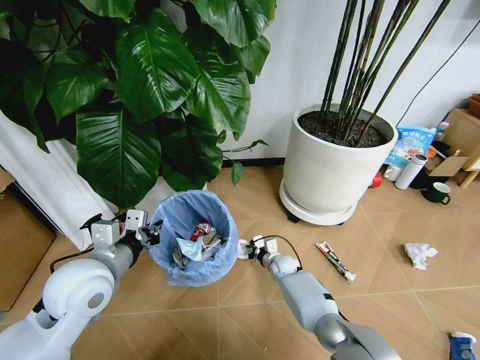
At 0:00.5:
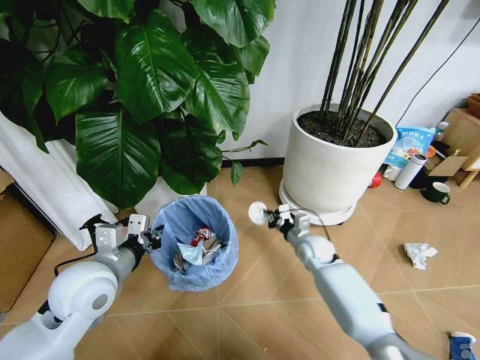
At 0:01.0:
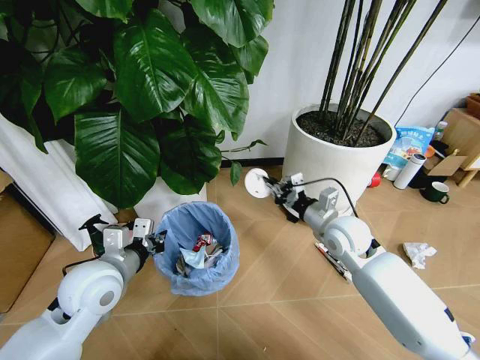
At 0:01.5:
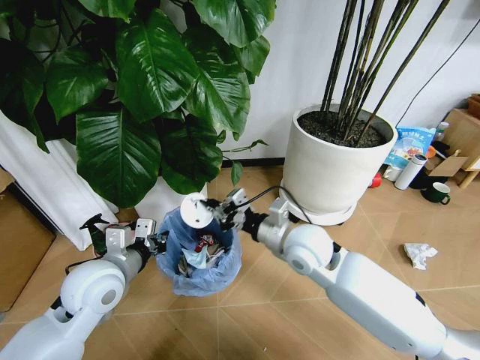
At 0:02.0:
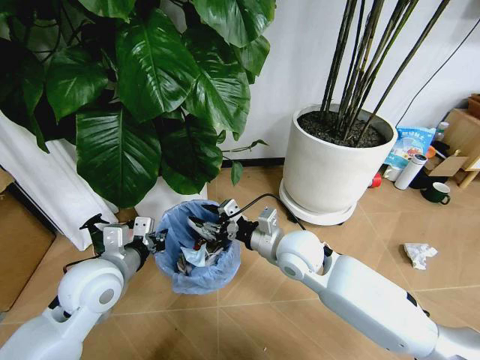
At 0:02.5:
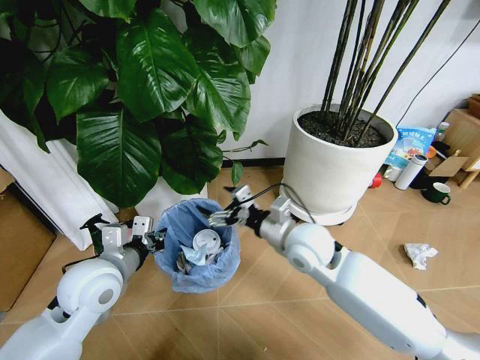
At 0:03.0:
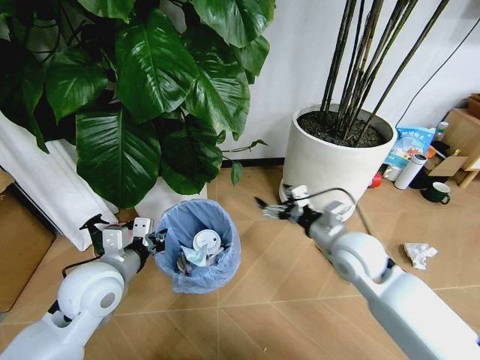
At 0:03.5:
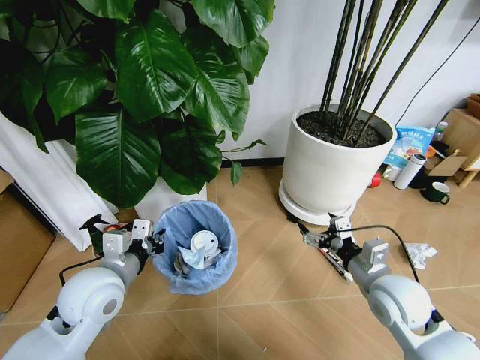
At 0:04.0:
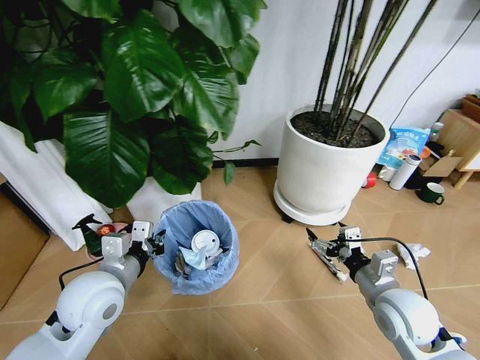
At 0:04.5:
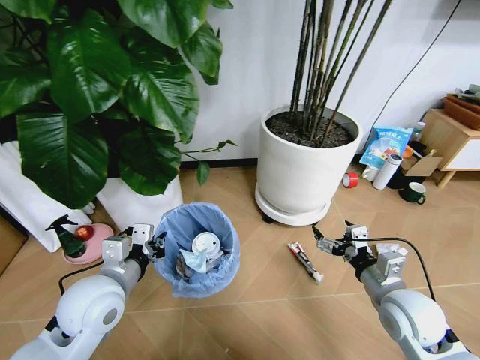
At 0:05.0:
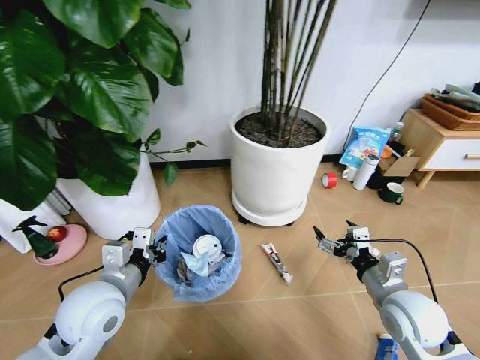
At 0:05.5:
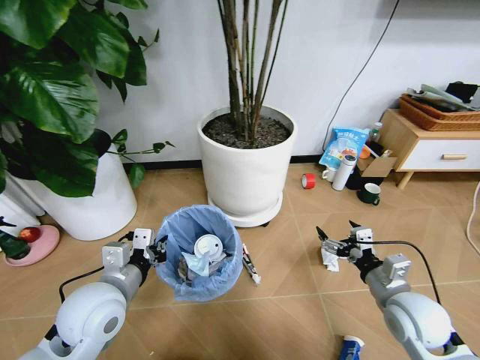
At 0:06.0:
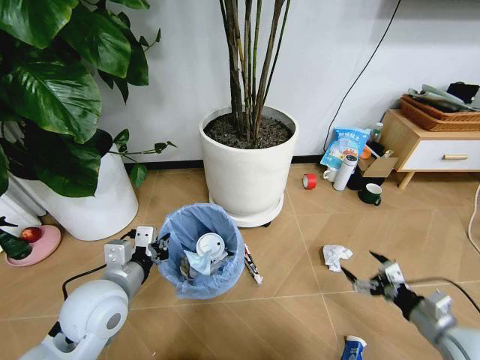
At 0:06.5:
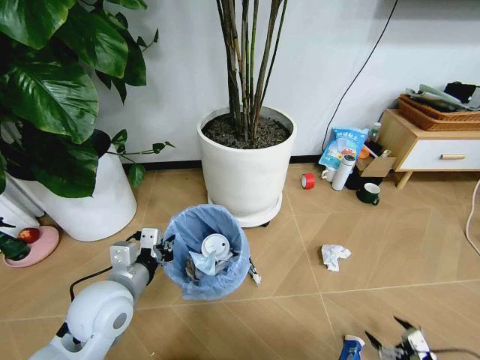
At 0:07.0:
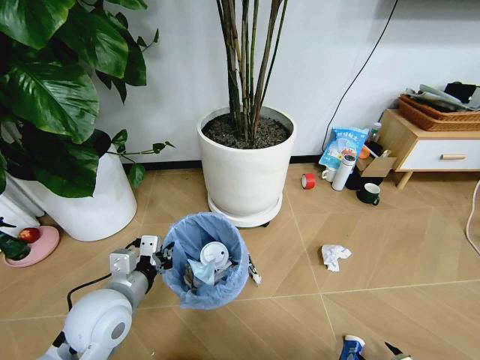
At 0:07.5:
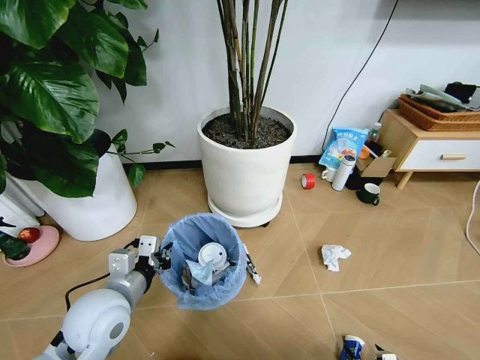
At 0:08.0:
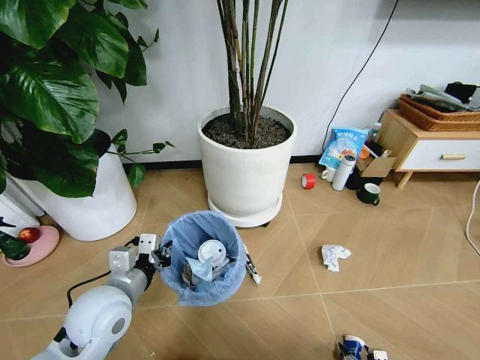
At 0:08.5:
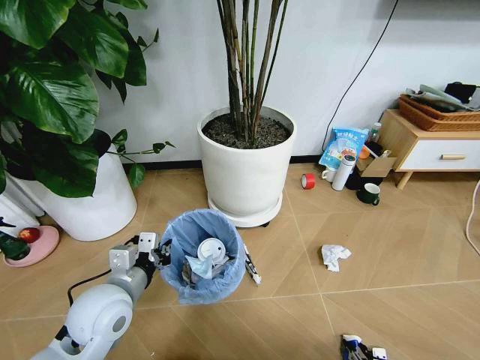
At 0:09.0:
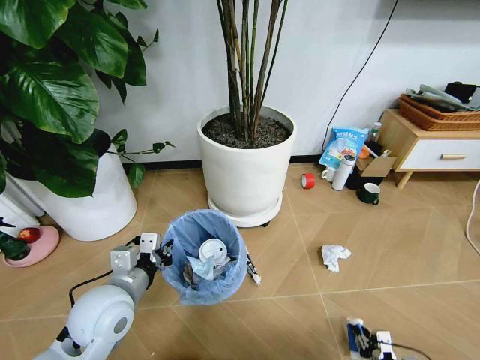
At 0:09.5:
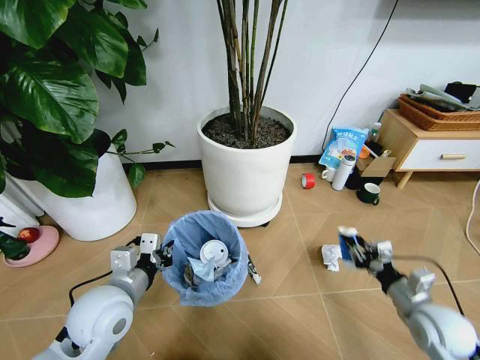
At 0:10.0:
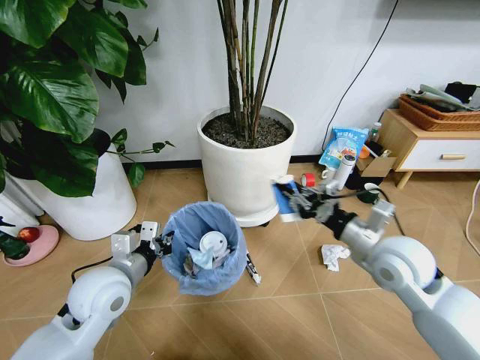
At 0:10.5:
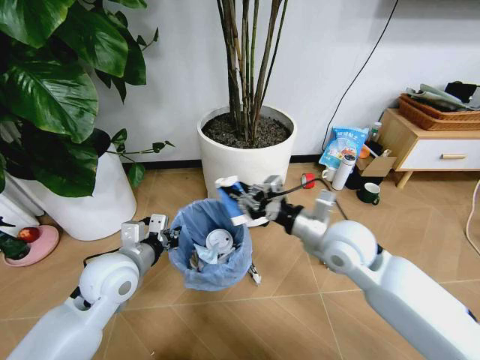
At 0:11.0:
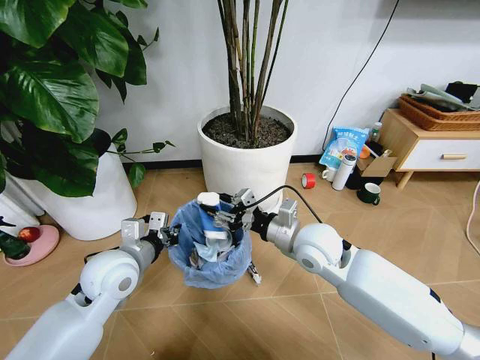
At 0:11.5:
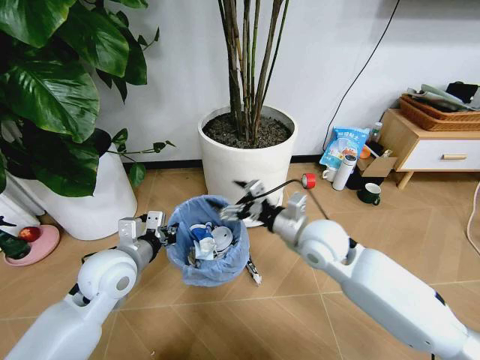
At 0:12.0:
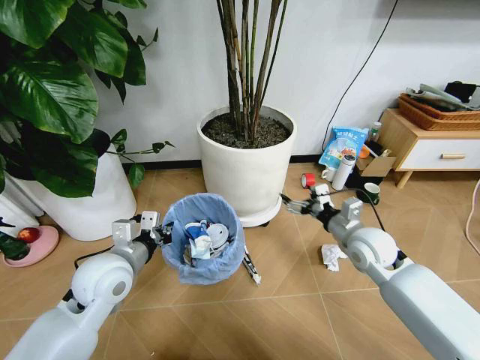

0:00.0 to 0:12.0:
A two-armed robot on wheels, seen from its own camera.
Task of the whole recording: Pick up the trash bin and place the garbage on the floor into it.
0:00.0 to 0:02.0: The right gripper goes approximately 30 cm upward, and opens its fingers.
0:02.0 to 0:04.0: The right gripper is displaced to the right and backward by roughly 20 cm, and opens its fingers.
0:04.0 to 0:06.0: The right gripper shifts approximately 15 cm to the right, backward and downward.
0:06.0 to 0:08.0: The right gripper travels downward and backward by some 25 cm.
0:08.0 to 0:10.0: The right gripper shifts some 40 cm upward and forward, and closes its fingers.
0:10.0 to 0:12.0: The right gripper goes some 10 cm downward and forward, moves roughly 15 cm to the left and comes back, and opens.

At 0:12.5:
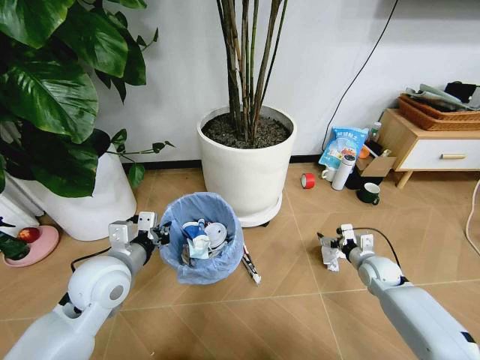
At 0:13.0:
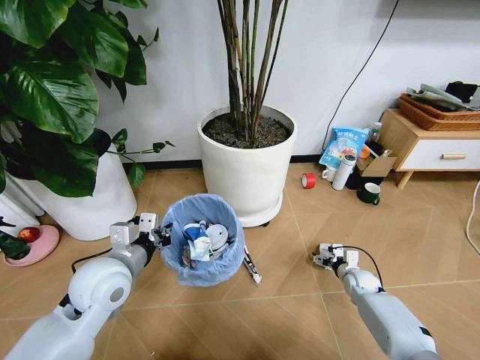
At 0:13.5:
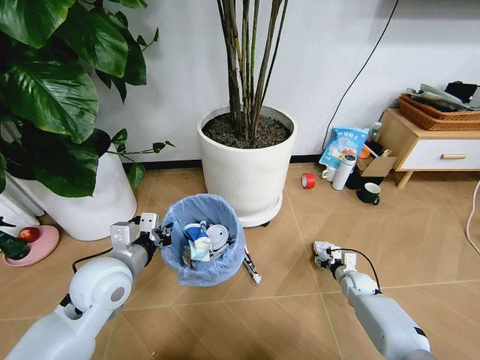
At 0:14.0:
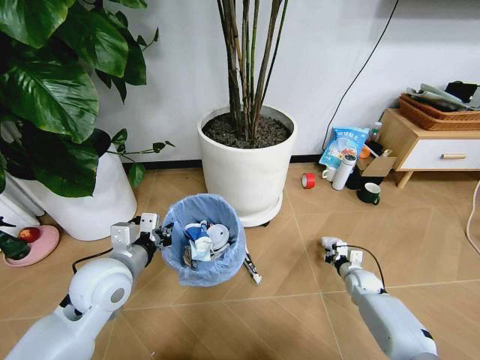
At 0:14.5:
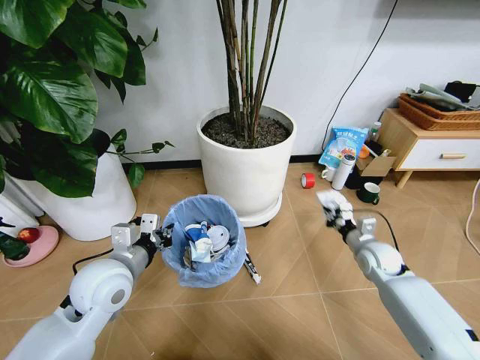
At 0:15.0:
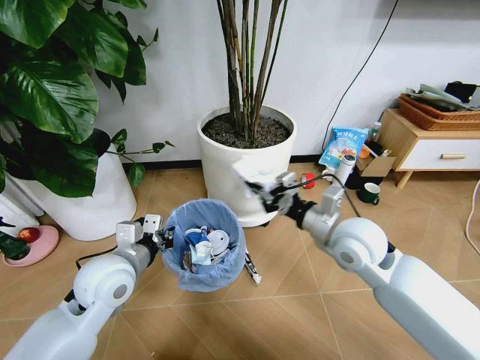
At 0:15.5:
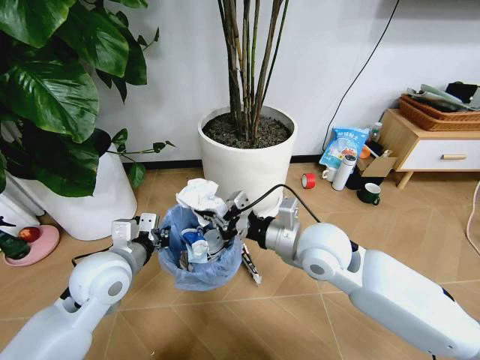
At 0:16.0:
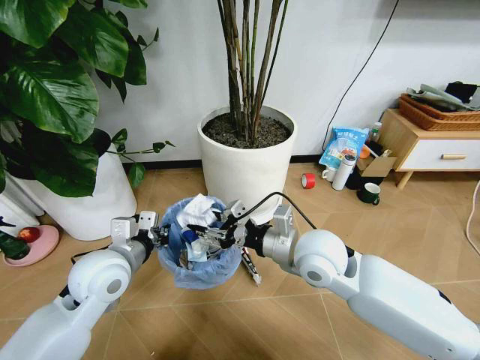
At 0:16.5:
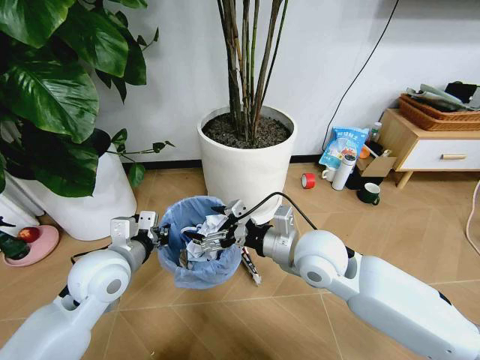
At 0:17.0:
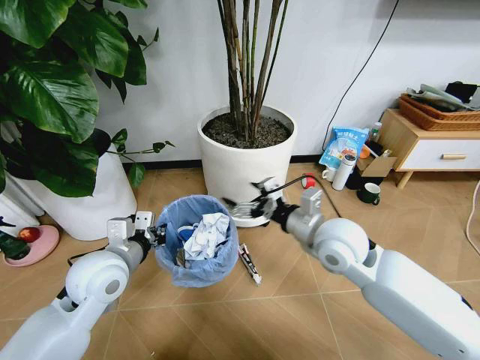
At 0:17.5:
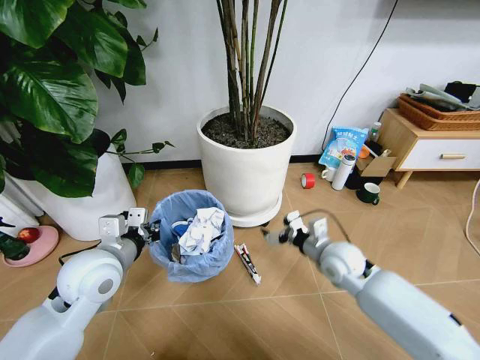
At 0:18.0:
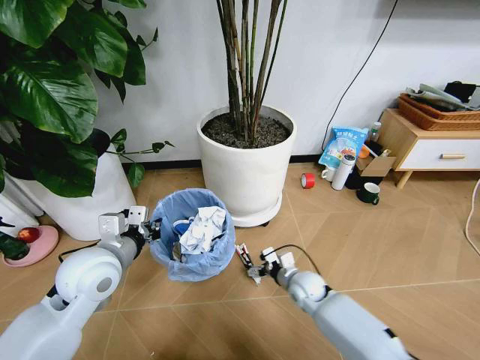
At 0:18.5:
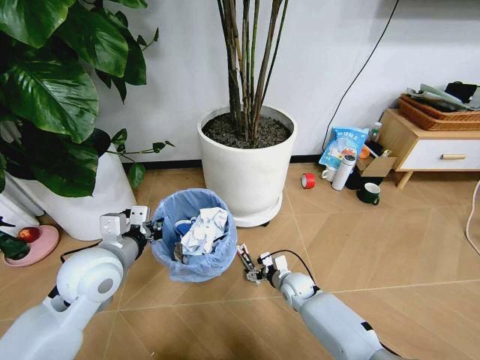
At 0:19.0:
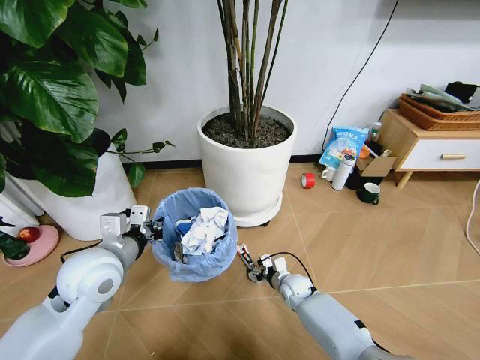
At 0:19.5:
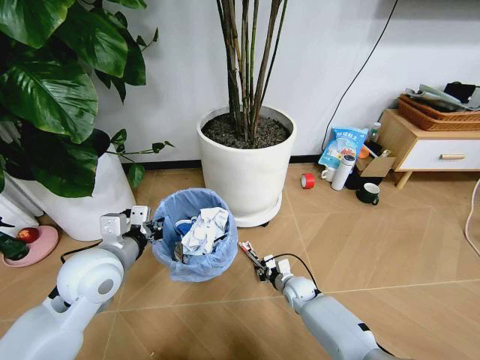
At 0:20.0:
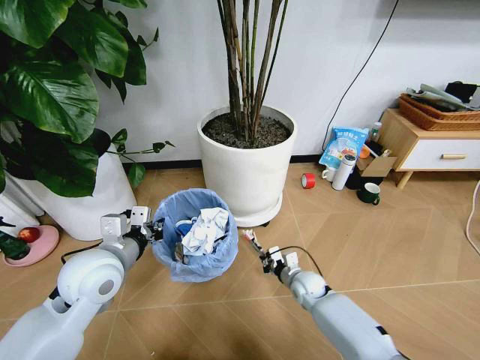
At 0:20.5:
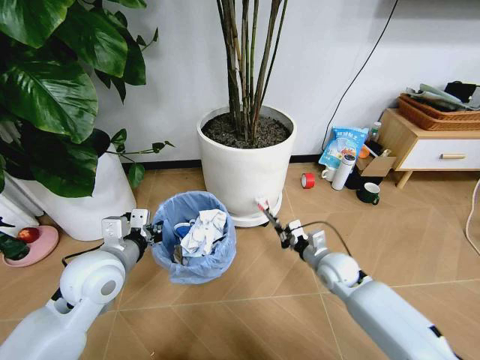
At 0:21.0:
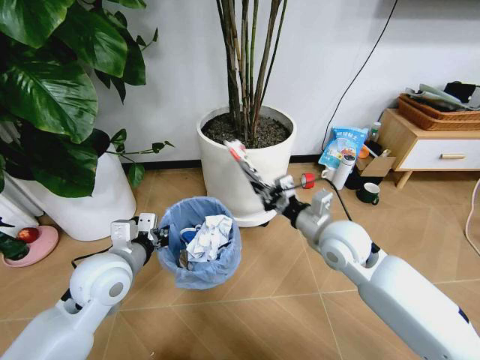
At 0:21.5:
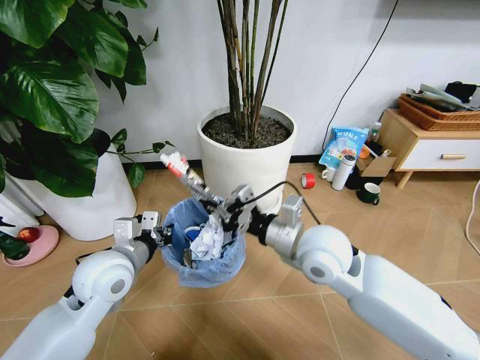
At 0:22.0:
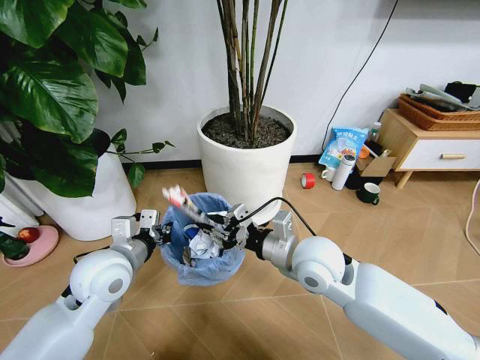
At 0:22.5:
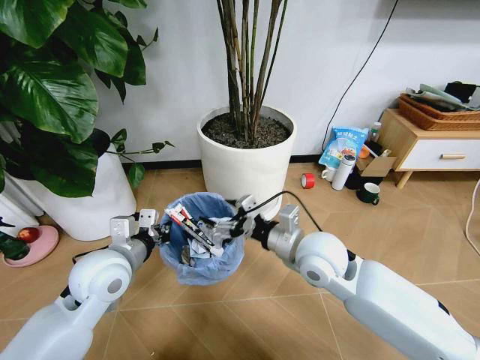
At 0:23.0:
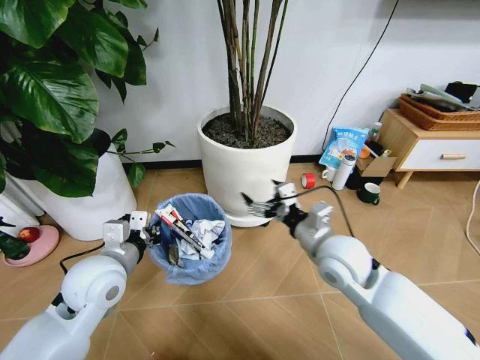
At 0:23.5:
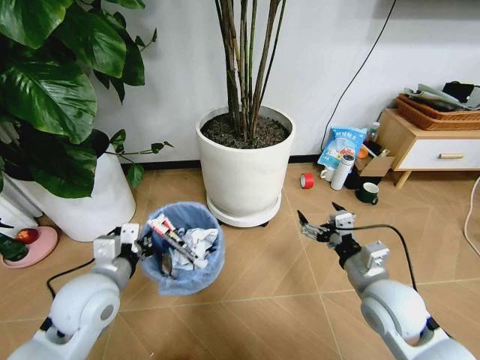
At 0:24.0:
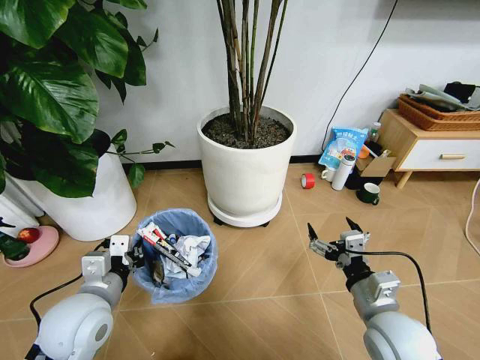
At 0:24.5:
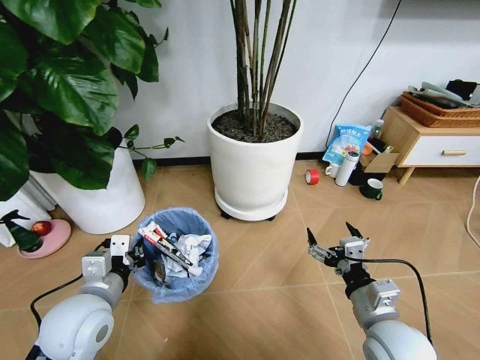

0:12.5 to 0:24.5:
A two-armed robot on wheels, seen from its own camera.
Task of the whole recording: Pick up the trash bin and place the garbage on the floor into it.
0:12.5 to 0:14.5: The right gripper goes roughly 10 cm upward, and closes up.
0:14.5 to 0:16.5: The right gripper heads to the left and upward, covering approximately 25 cm, and opens.
0:16.5 to 0:18.5: The right gripper moves downward, approximately 30 cm.
0:18.5 to 0:20.5: The right gripper travels upward and to the right by some 15 cm, and closes.
0:20.5 to 0:22.5: The right gripper heads upward and to the left, covering approximately 20 cm, and opens its fingers.
0:22.5 to 0:24.5: The right gripper moves backward, to the right and downward, roughly 20 cm, while the left gripper travels backward by roughly 5 cm.

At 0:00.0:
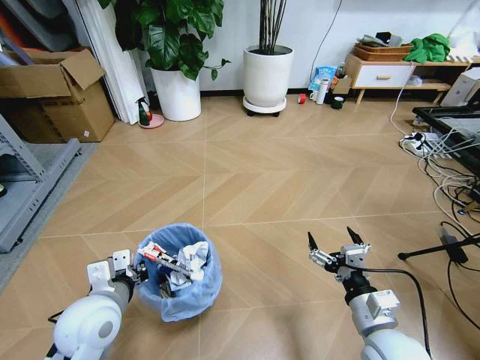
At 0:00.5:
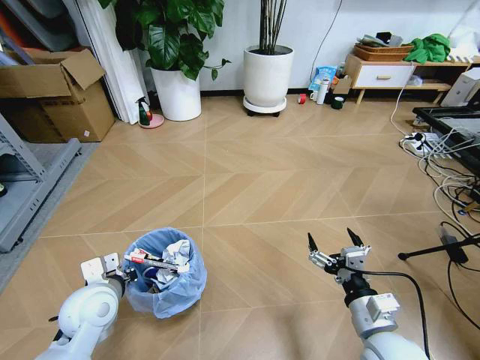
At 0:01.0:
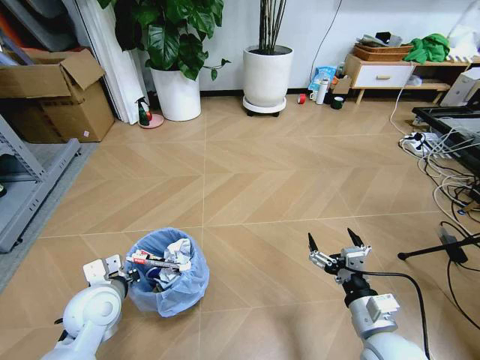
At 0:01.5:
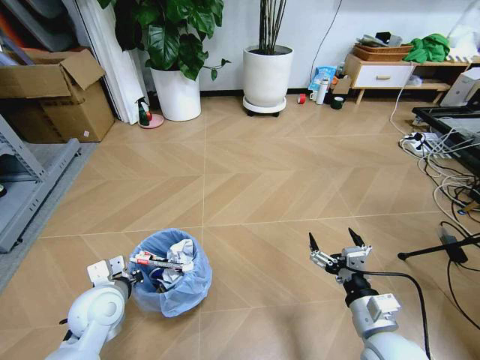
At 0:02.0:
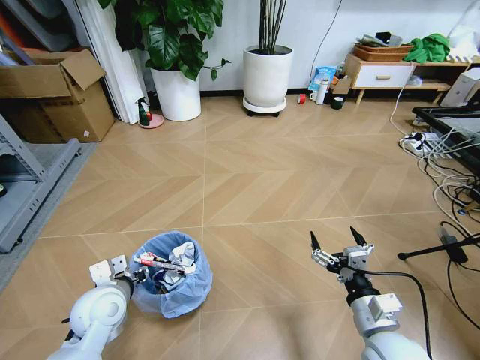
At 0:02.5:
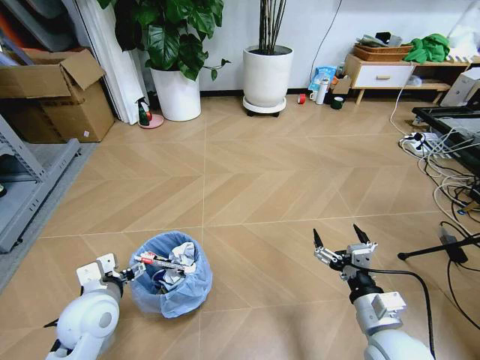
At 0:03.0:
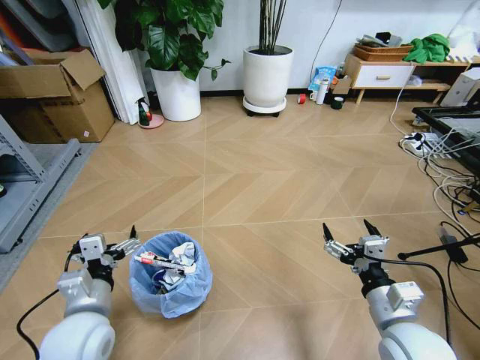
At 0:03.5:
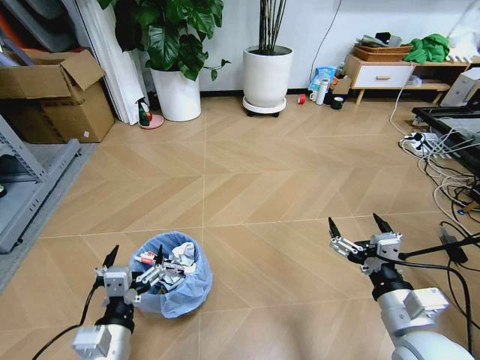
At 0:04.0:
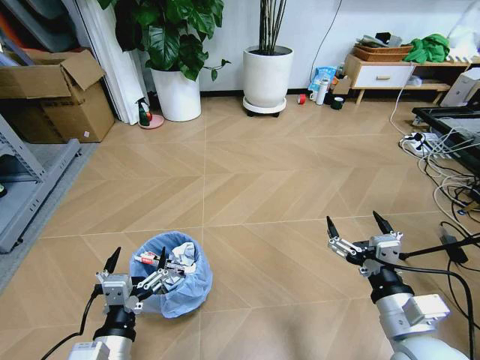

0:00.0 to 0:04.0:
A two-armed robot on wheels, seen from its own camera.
Task of the whole recording: Pick up the trash bin and place the garbage on the floor into it.
0:00.0 to 0:02.0: The left gripper travels downward by some 5 cm, and opens its fingers.
0:02.0 to 0:04.0: The left gripper is displaced backward and to the right by about 20 cm, and opens; the right gripper moves upward, about 5 cm.
